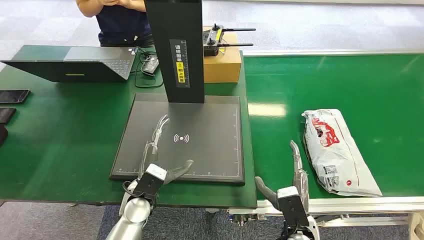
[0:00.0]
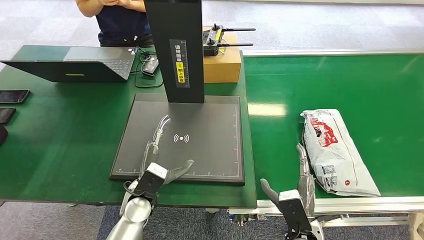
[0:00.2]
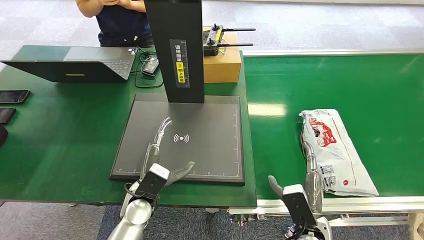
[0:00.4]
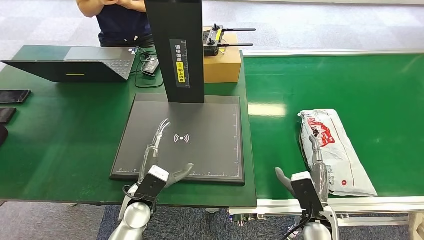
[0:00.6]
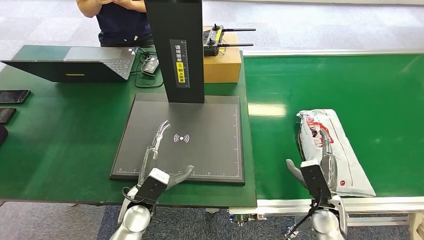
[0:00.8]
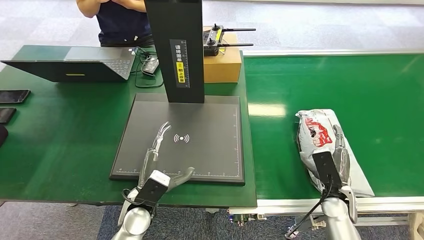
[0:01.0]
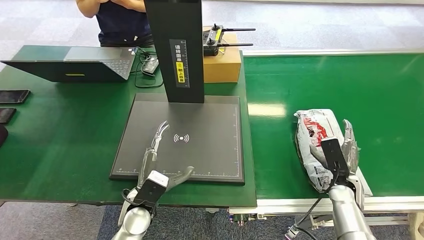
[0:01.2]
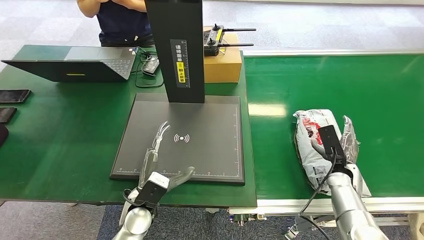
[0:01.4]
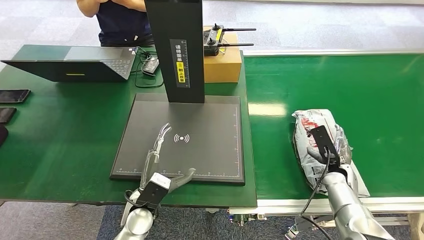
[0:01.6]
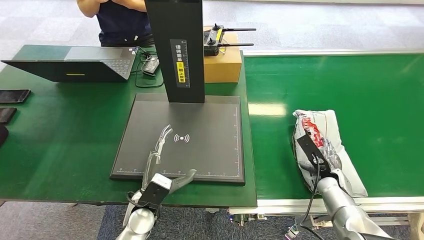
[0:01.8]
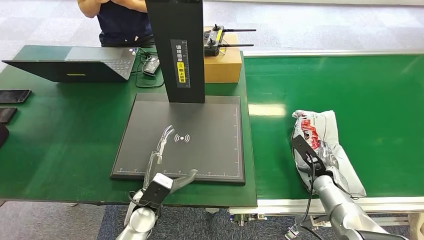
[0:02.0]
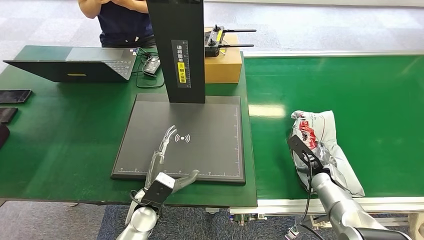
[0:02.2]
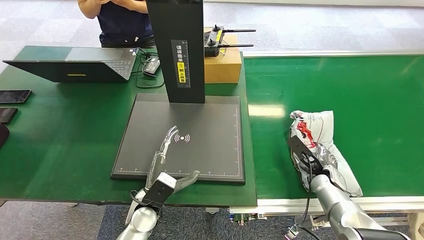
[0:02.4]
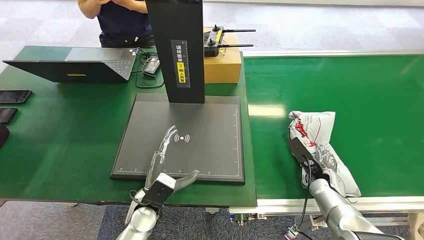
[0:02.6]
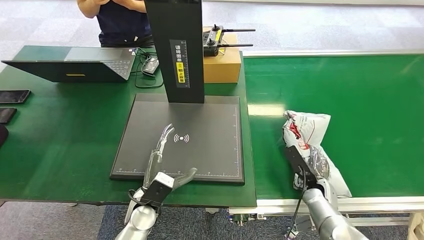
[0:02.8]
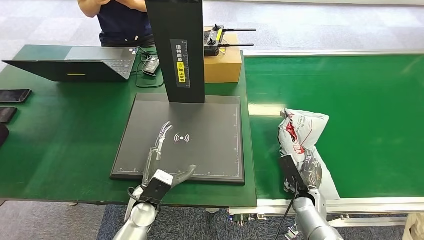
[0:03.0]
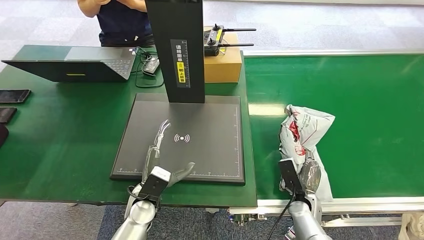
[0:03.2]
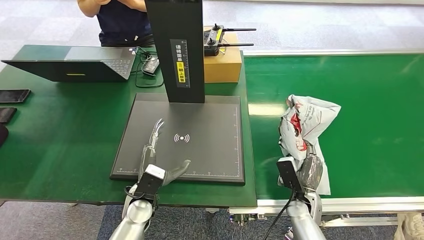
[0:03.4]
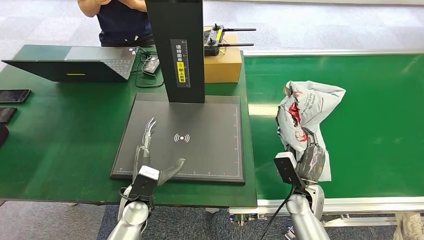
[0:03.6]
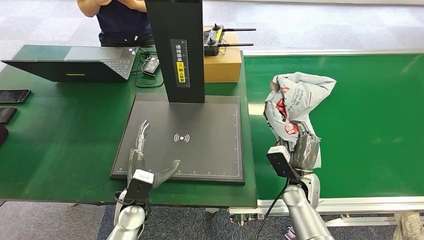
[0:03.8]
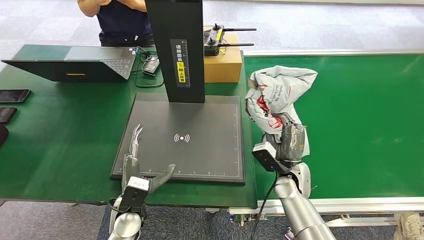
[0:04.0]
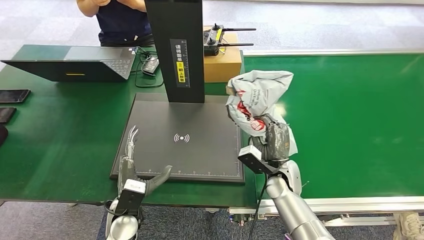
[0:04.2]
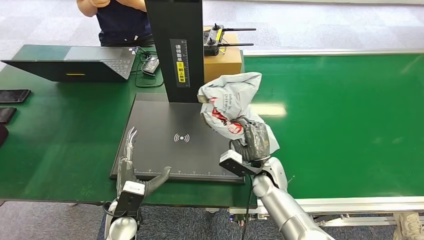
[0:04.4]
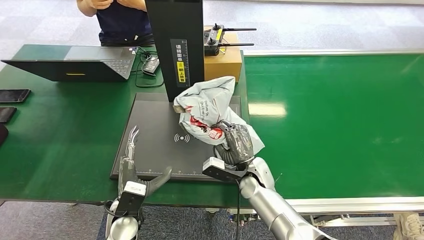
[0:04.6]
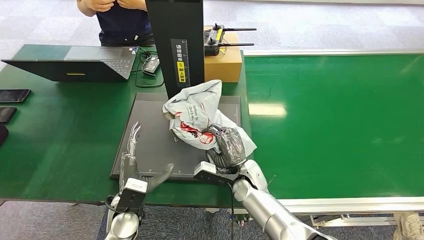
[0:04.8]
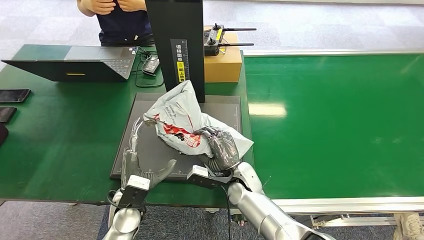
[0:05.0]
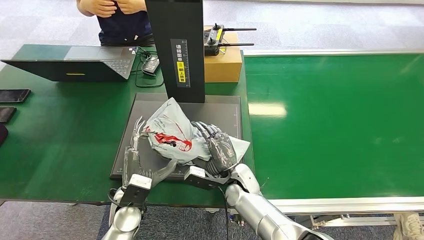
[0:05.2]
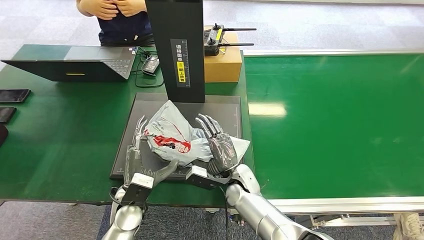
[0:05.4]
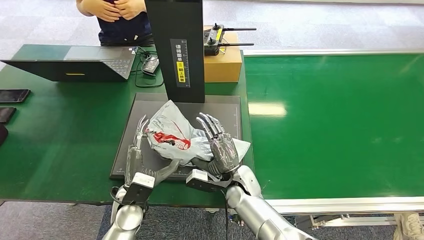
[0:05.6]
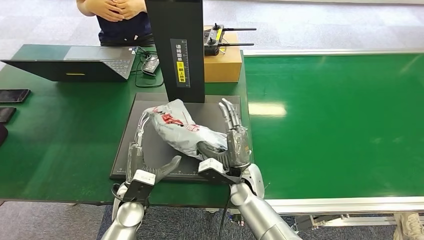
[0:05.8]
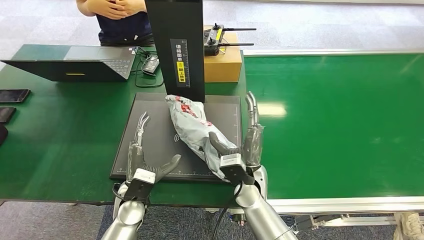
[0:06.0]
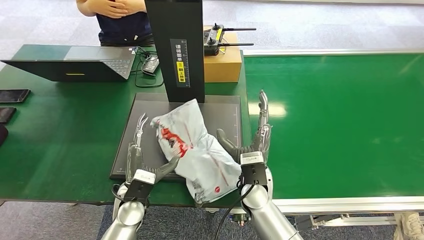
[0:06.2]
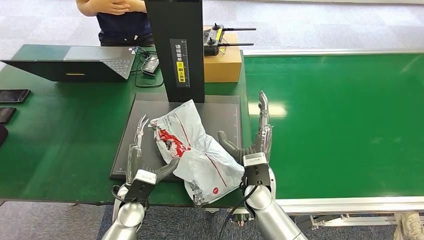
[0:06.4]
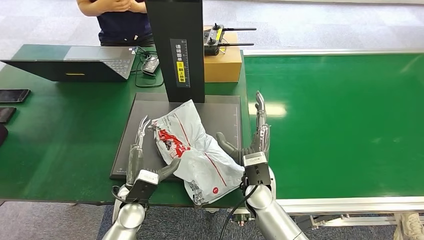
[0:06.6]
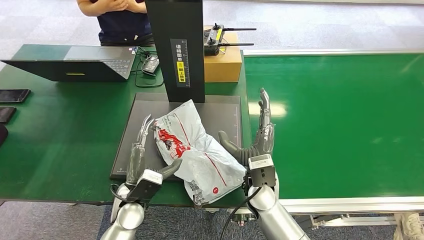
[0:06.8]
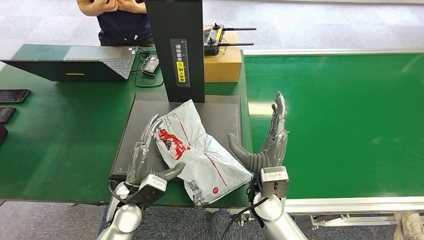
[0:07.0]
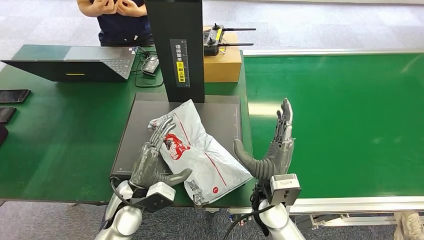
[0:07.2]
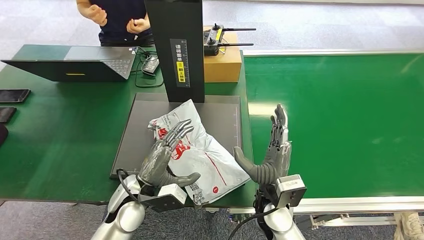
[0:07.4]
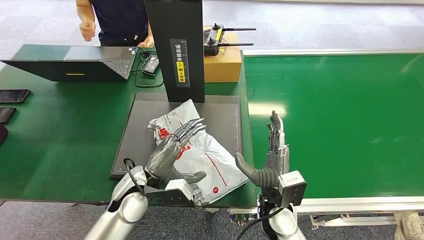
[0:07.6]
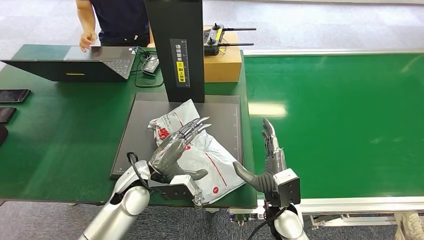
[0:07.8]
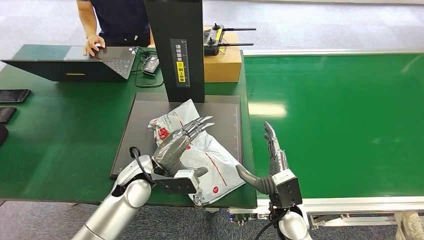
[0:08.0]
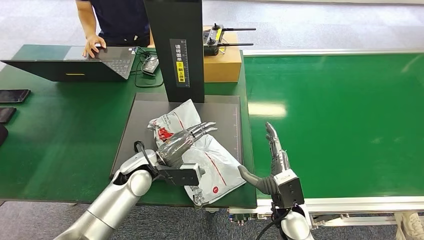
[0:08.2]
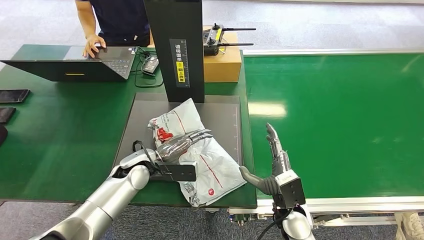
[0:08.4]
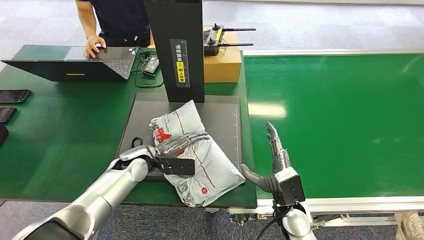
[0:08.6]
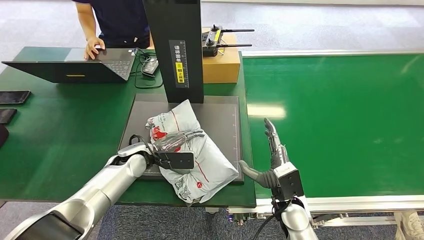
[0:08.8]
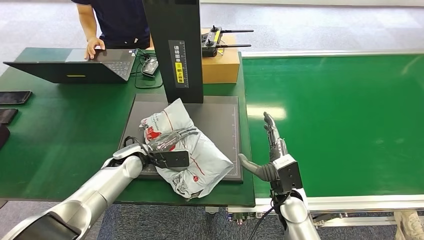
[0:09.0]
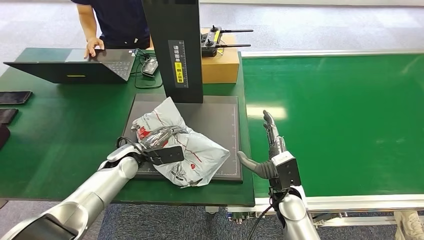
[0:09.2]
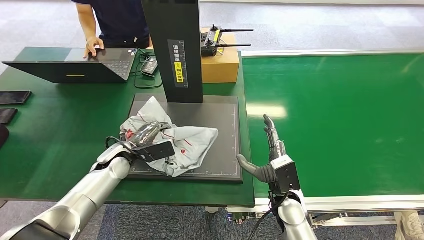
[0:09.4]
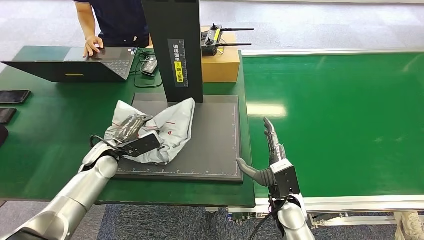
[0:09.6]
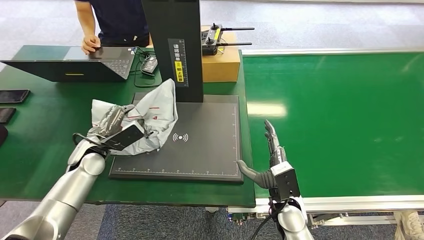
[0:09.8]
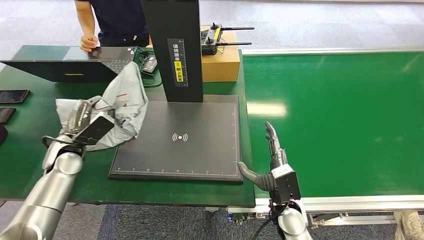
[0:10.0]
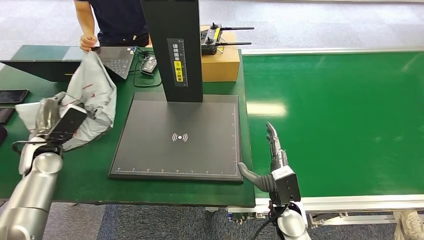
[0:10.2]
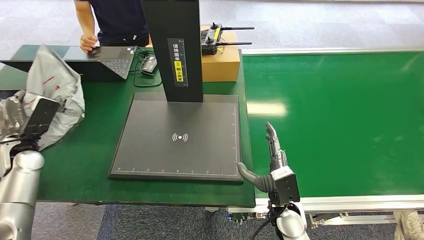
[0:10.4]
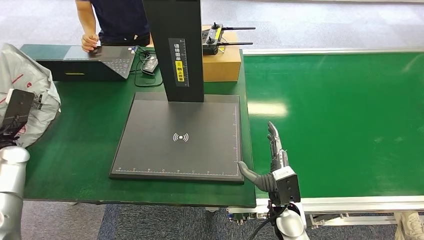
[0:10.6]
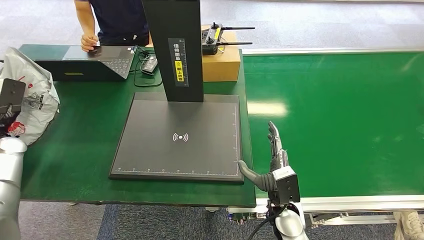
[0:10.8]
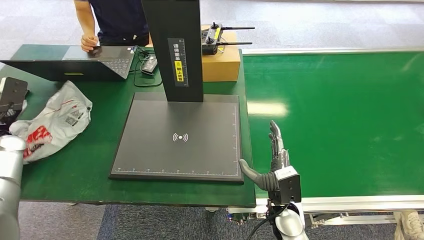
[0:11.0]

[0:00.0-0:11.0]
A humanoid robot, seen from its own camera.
Step, 0:00.0 to 0:03.6: Pick up the package from the conveyor belt.
Step, 0:04.0 to 0:06.0: Place the package onto the inbound machine.
Step, 0:06.2 to 0:09.6: Pick up the package from the inbound machine.
0:01.6 to 0:03.2: The right hand travels to the left, downward and backward by roughly 15 cm.
0:03.2 to 0:04.8: The right hand is displaced to the left and upward by approximately 20 cm.
0:04.8 to 0:06.2: The right hand shifts about 5 cm upward.
0:06.2 to 0:07.8: The right hand heads to the right and backward, covering about 10 cm. Meanwhile the left hand shifts approximately 5 cm upward.

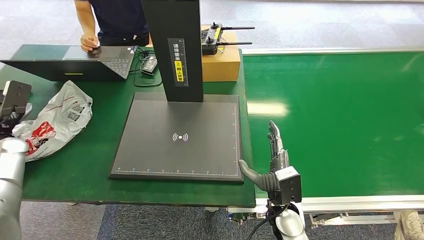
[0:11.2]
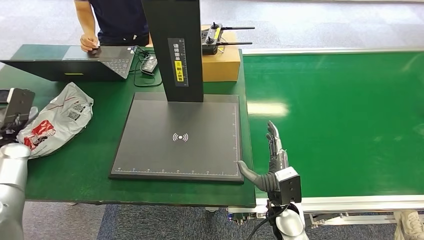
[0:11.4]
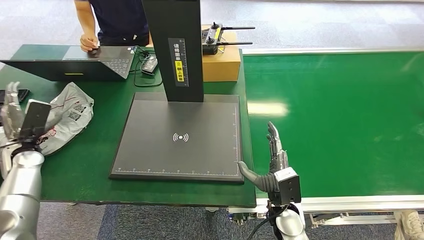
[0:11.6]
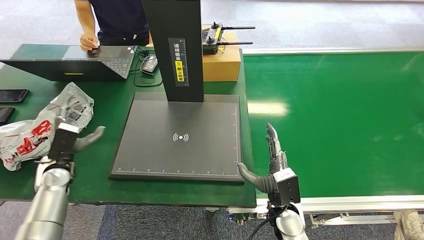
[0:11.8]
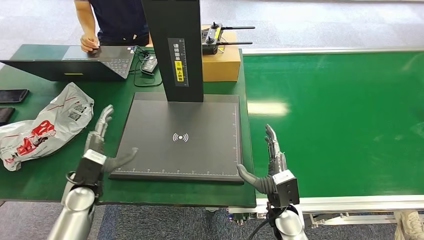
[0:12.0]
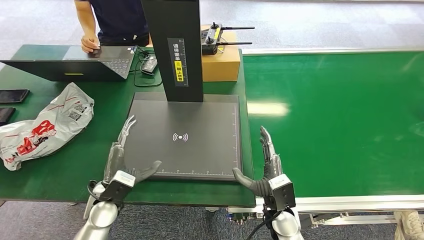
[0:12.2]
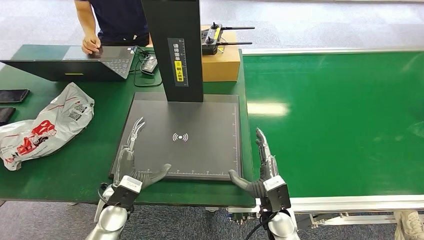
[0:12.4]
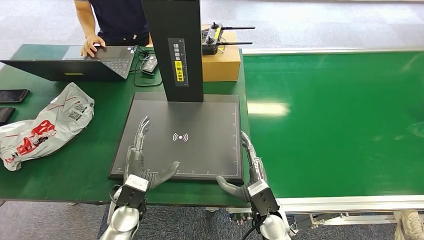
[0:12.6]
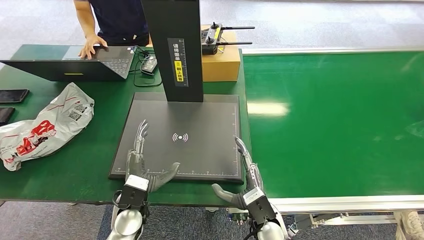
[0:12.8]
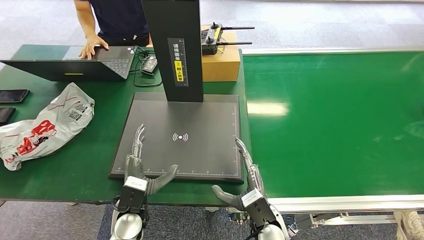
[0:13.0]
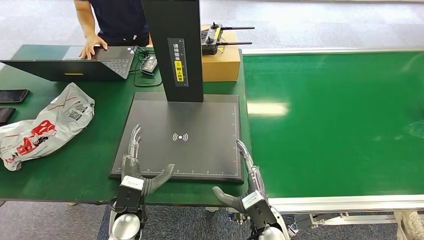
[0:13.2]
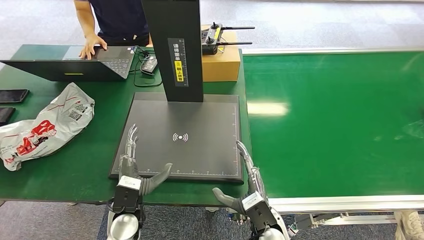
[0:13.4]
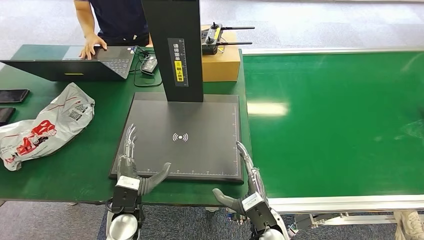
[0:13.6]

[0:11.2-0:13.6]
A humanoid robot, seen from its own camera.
Step, 0:11.2 to 0:13.6: Place the package into the parcel locker.
0:11.2 to 0:12.4: The left hand is displaced to the right and backward by some 30 cm.
0:12.4 to 0:13.6: The left hand changes place by roughly 5 cm.
